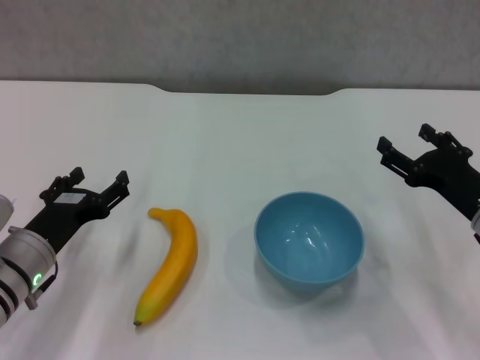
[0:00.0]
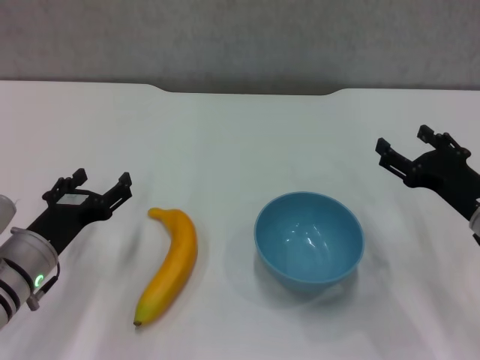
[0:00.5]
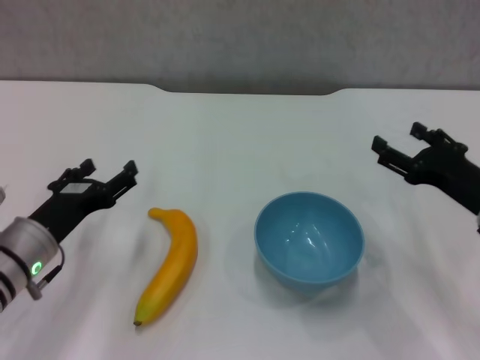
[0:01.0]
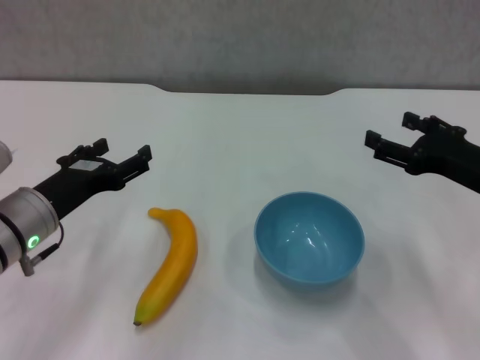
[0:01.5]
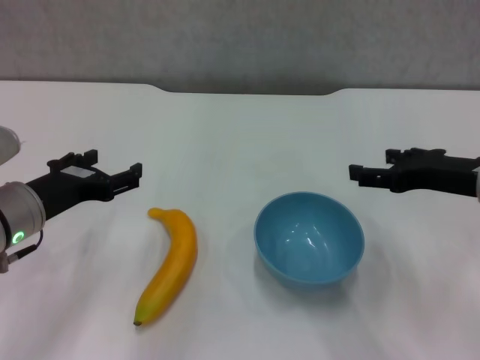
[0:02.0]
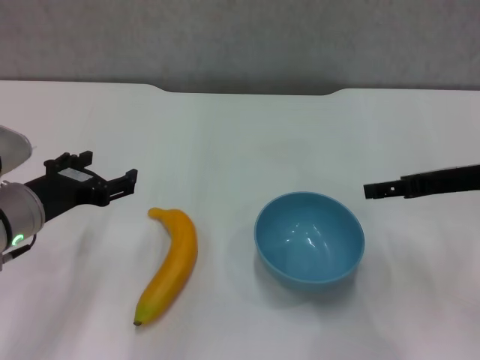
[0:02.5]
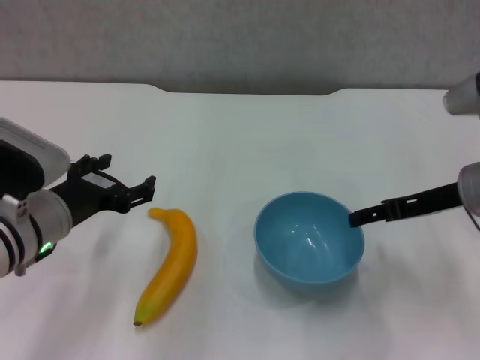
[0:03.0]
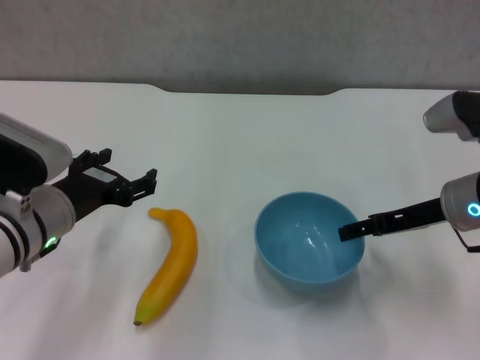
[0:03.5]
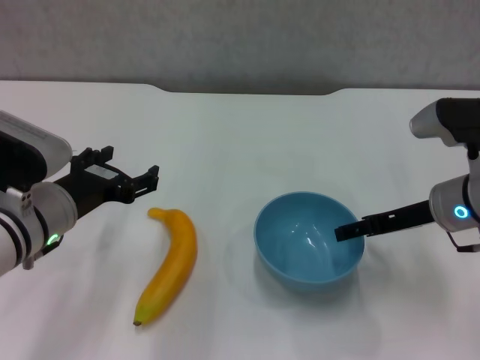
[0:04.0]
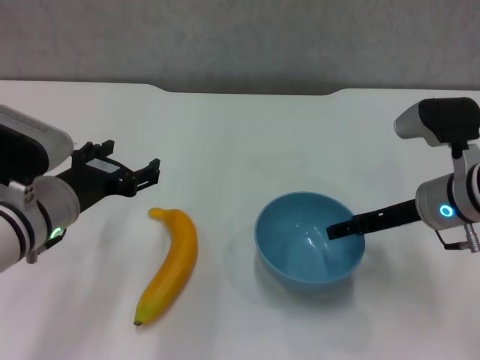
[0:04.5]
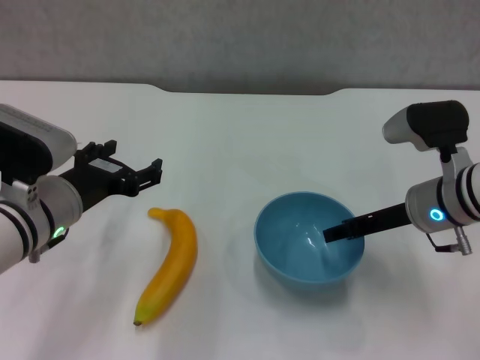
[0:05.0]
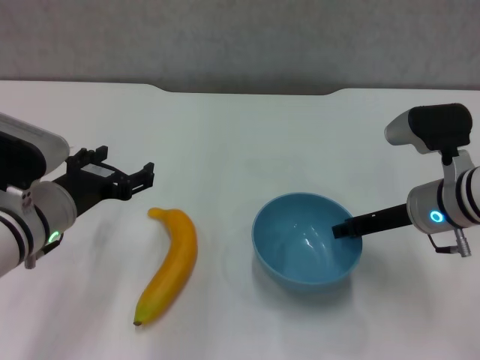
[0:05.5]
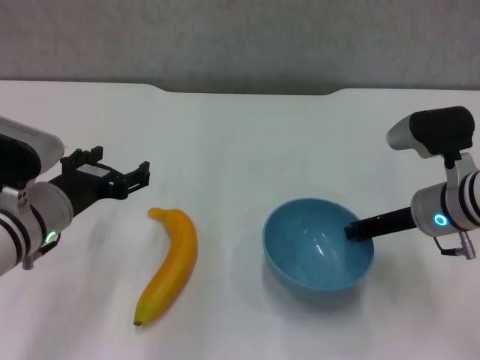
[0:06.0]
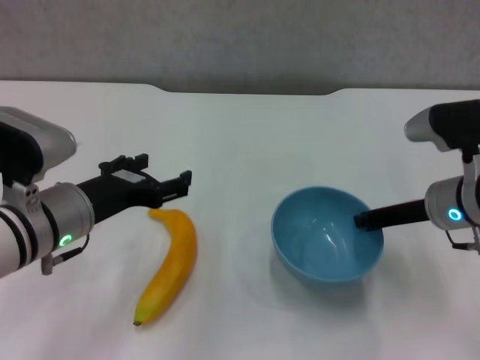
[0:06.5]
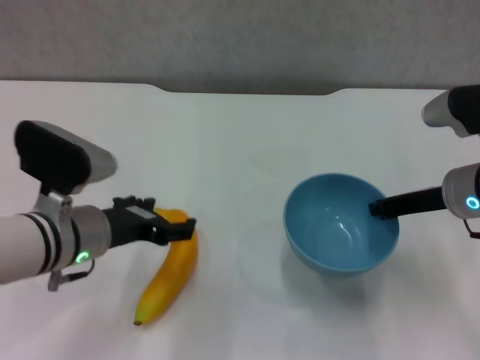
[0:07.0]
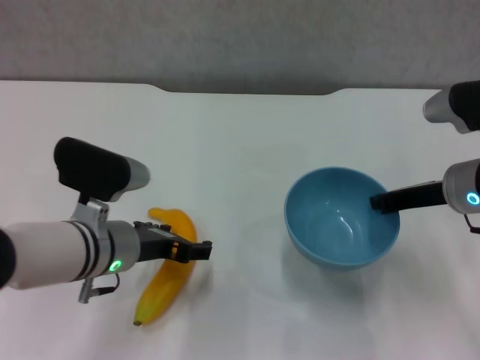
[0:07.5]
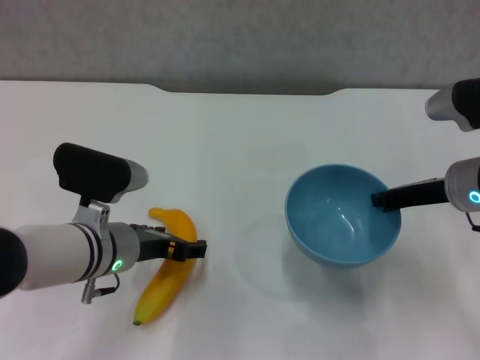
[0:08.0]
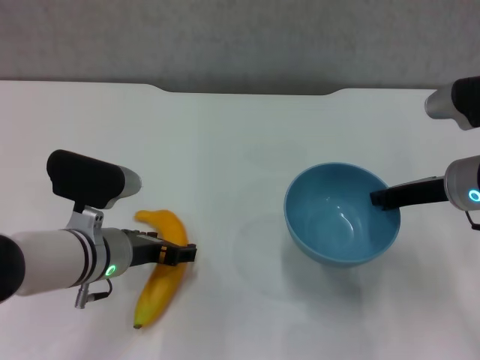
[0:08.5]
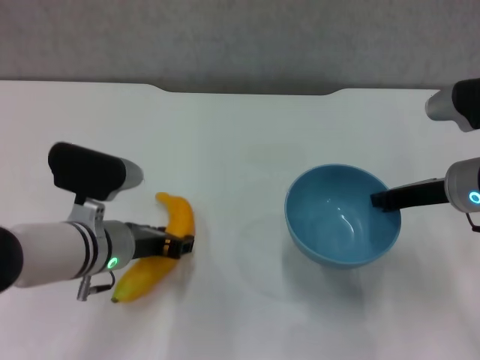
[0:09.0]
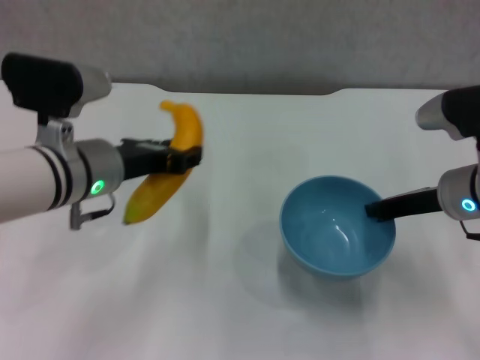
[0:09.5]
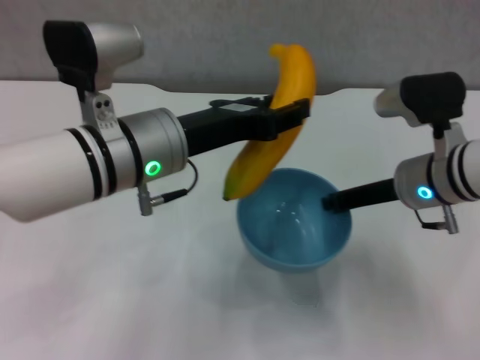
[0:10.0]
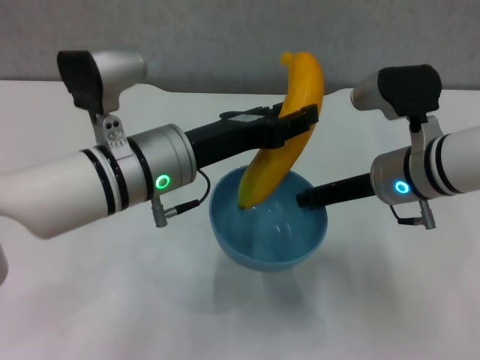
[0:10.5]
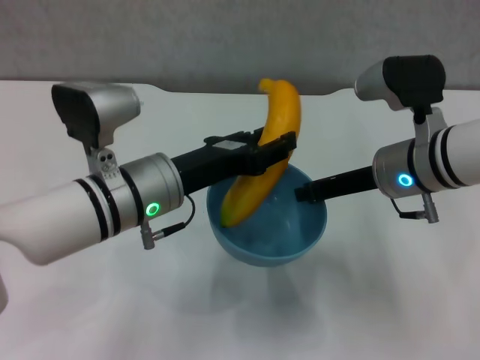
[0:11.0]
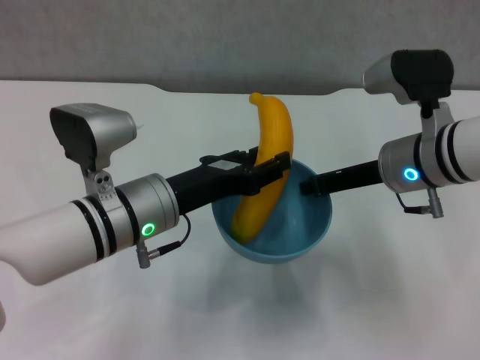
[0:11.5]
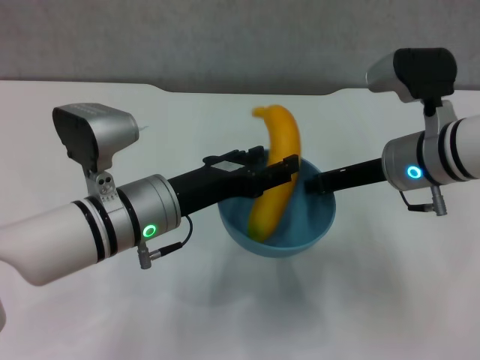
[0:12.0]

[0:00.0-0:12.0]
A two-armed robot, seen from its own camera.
Step, 0.0 to 5.5 s: Grasp the blue bowl with right gripper.
Step, 7.0 to 8.5 s: Grasp the banana with left gripper.
0.0 to 2.0 s: The two grippers go some 10 cm upward.
2.0 to 4.0 s: The right gripper shifts by approximately 5 cm.
4.0 to 6.0 s: The right gripper closes.
6.0 to 8.0 s: The left gripper goes roughly 5 cm to the right.
8.0 to 10.0 s: The left gripper moves upward, some 15 cm, and closes.
10.0 to 12.0 s: The left gripper is displaced downward by approximately 10 cm.

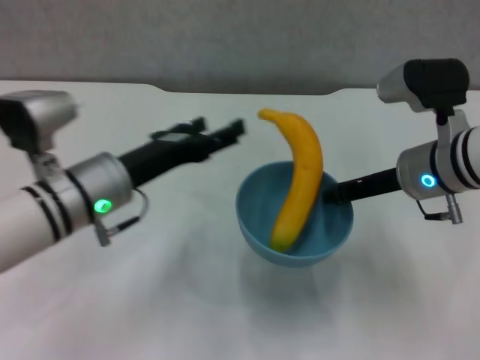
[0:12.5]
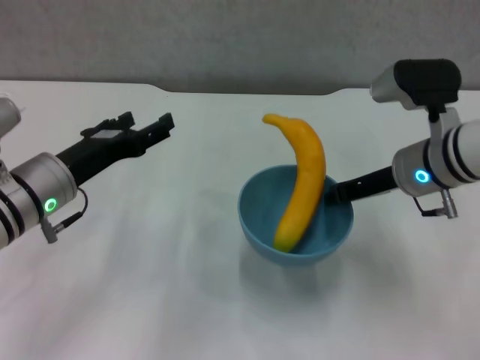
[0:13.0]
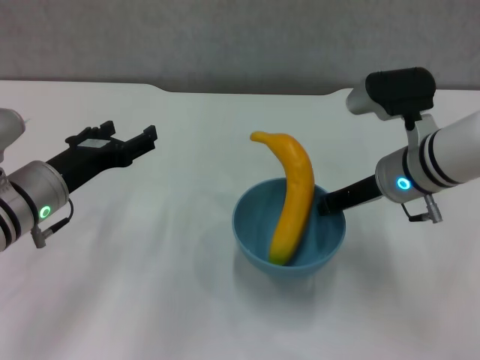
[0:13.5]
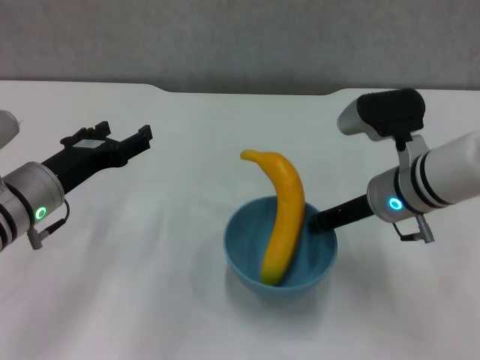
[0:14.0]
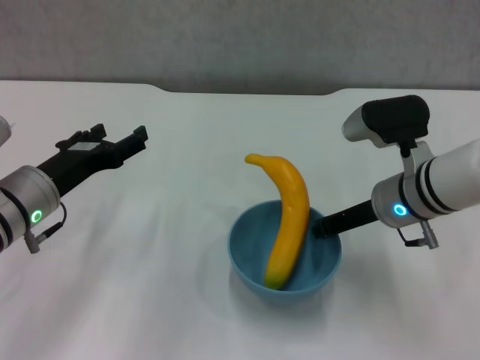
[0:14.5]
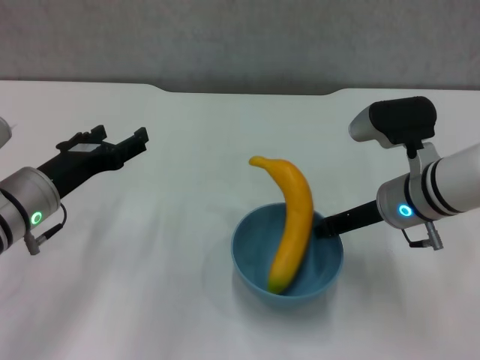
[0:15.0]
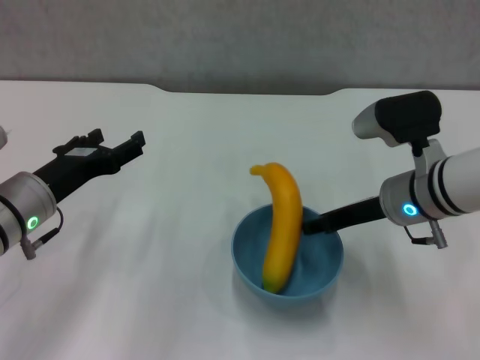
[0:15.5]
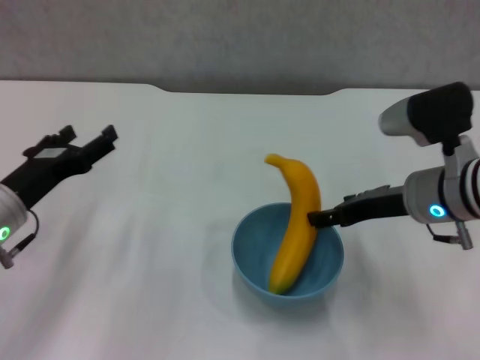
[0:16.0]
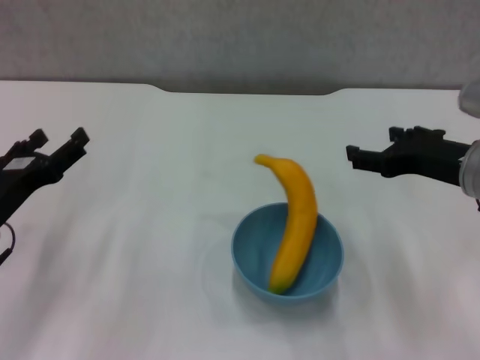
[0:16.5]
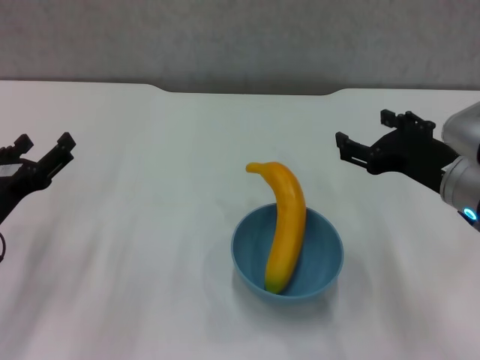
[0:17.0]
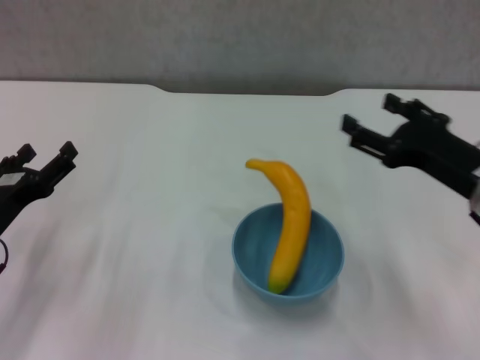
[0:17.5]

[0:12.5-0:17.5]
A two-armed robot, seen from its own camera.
Step, 12.5 to 16.0 s: Place the bowl on the table with right gripper.
12.5 to 15.0 s: The left gripper travels to the left by some 10 cm.
15.0 to 17.5 s: The right gripper heads backward and to the right, covering about 10 cm, and opens up. The left gripper shifts roughly 10 cm backward and to the left.

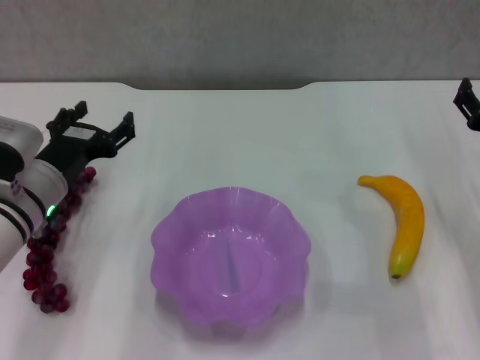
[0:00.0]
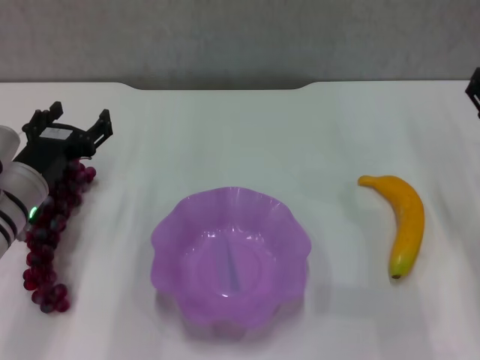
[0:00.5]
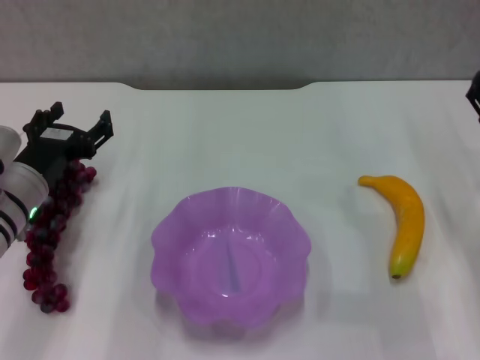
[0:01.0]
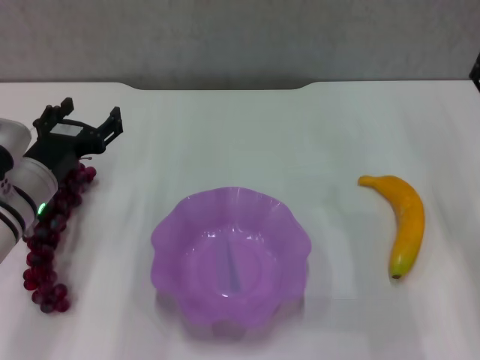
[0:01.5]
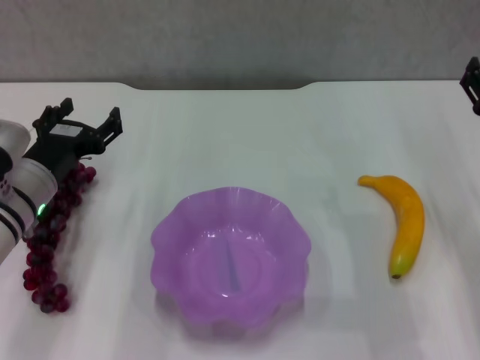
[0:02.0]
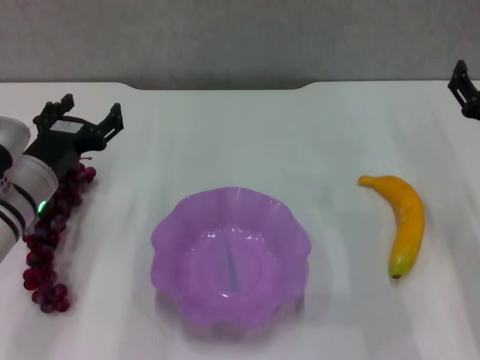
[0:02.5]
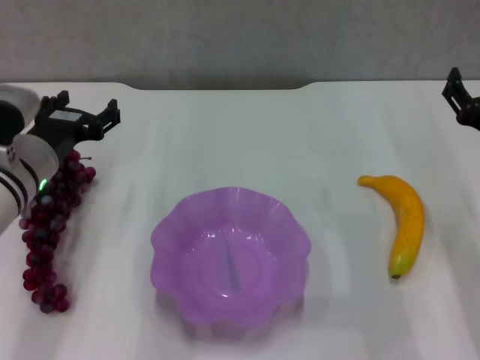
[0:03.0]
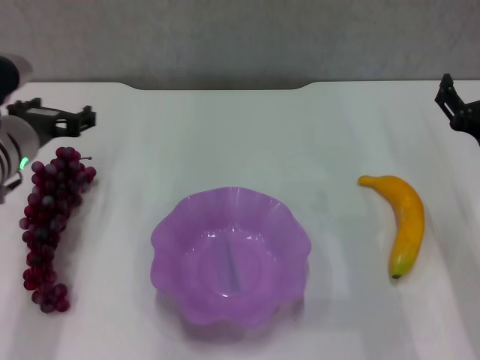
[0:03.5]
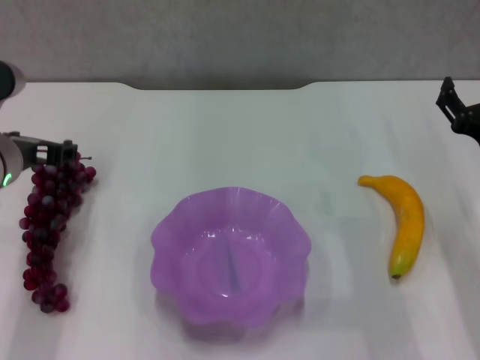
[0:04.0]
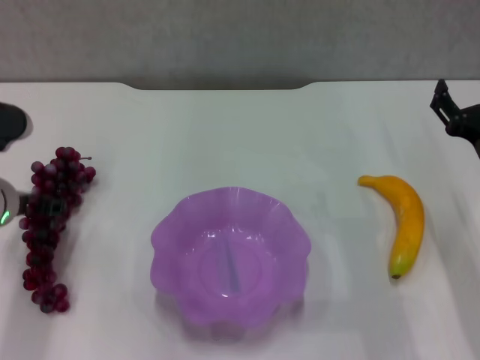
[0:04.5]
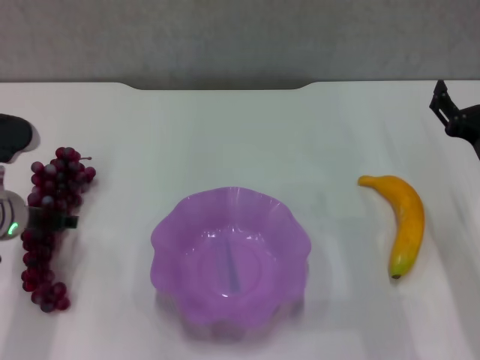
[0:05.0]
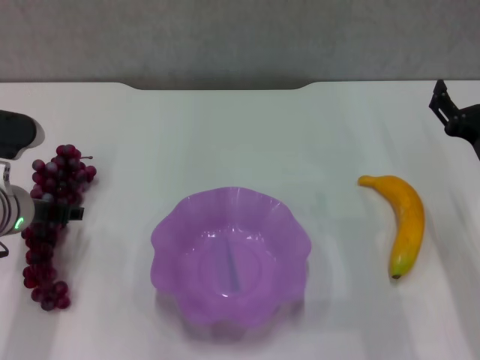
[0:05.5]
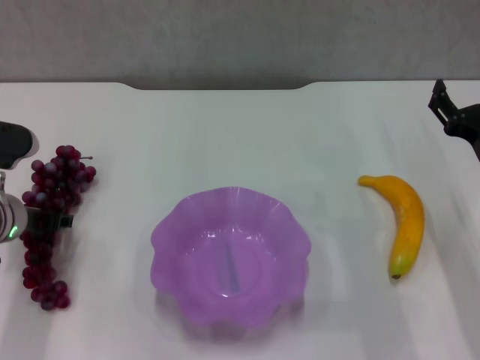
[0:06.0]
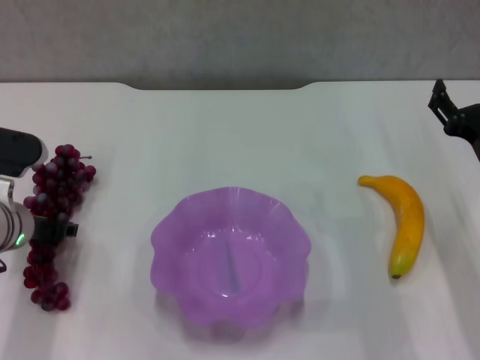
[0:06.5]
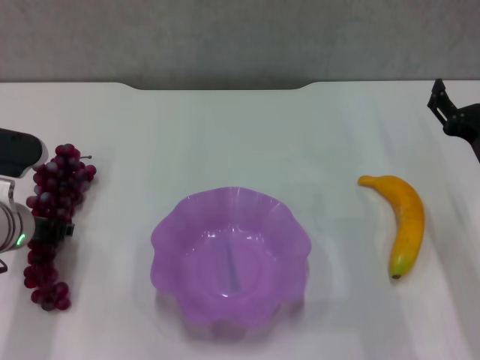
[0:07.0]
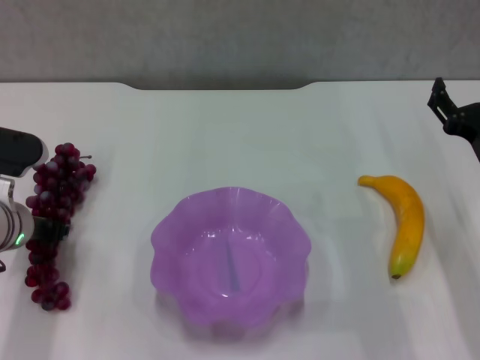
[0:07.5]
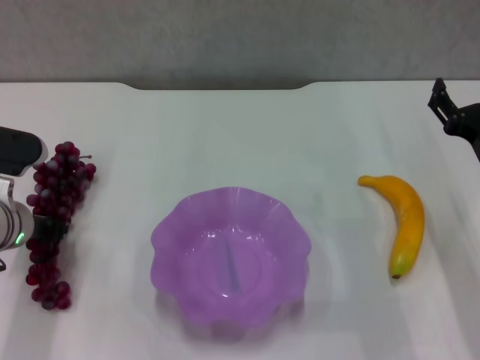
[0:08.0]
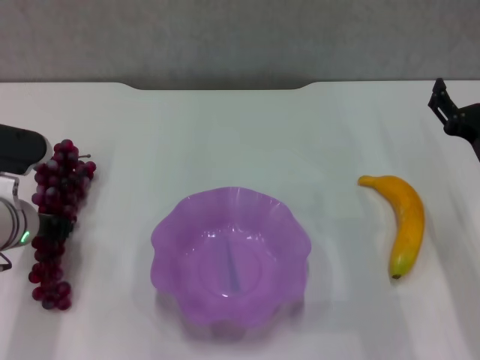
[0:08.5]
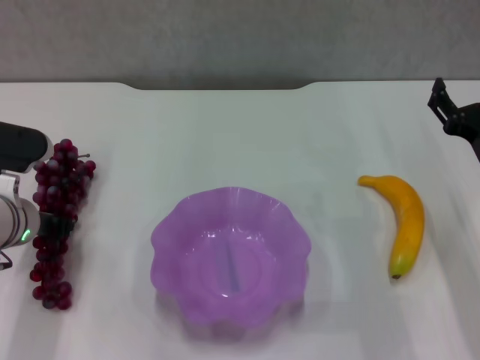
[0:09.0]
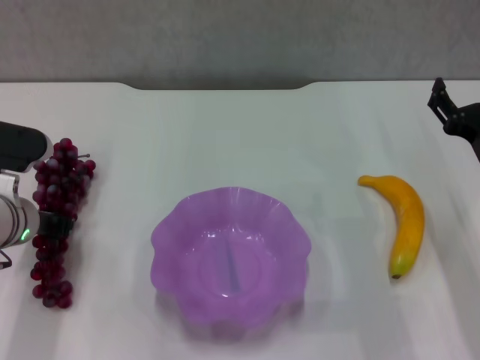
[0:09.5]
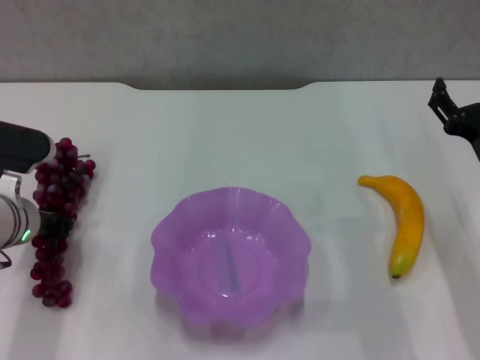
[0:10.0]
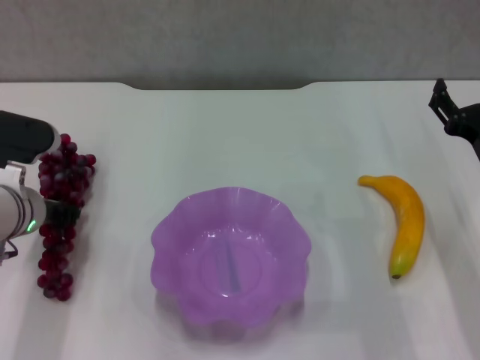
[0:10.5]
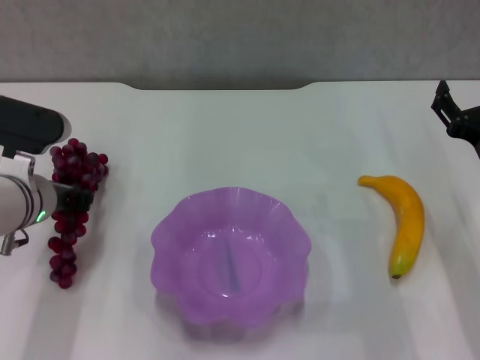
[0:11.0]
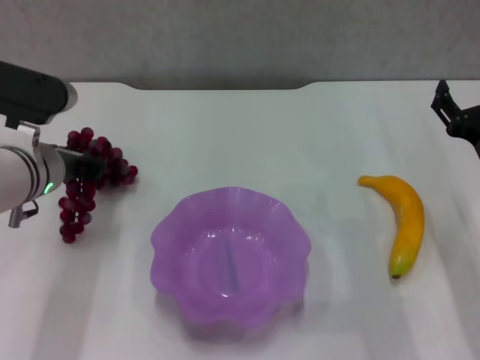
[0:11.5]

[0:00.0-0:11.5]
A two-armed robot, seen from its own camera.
Step, 0.0 to 9.5 s: Grasp the grape with left gripper.
0.0 to 2.0 s: The grippers make only small movements.
2.0 to 4.0 s: The left gripper heads upward, covering some 10 cm.
4.0 to 6.0 s: The left gripper is displaced downward by about 5 cm.
6.0 to 7.5 s: The left gripper closes up.
7.5 to 9.5 s: Both grippers stay put.
9.5 to 11.5 s: The left gripper heads upward, covering some 5 cm.
